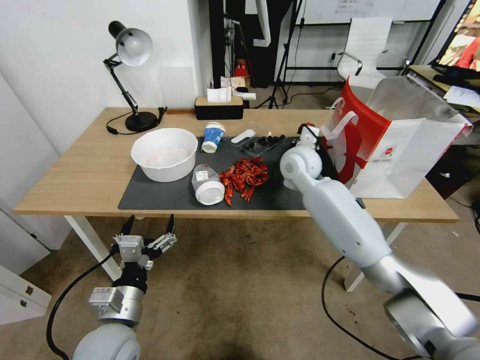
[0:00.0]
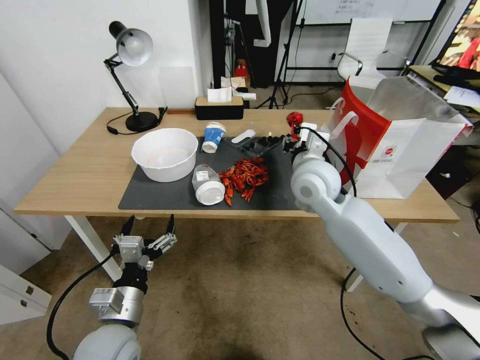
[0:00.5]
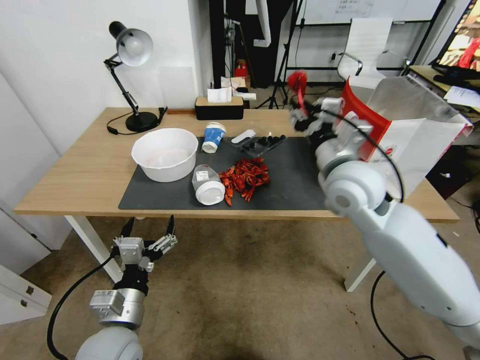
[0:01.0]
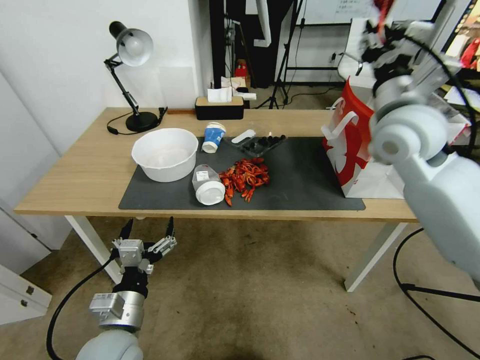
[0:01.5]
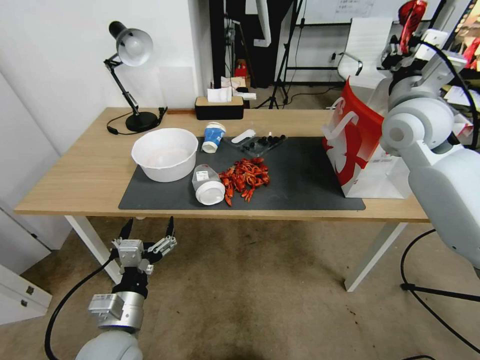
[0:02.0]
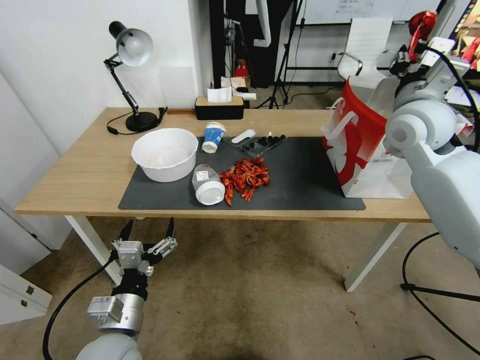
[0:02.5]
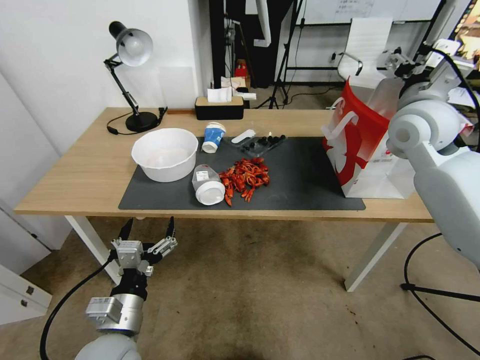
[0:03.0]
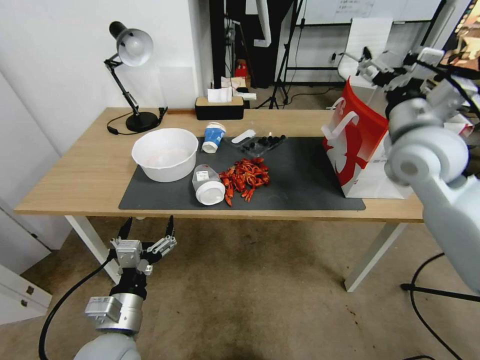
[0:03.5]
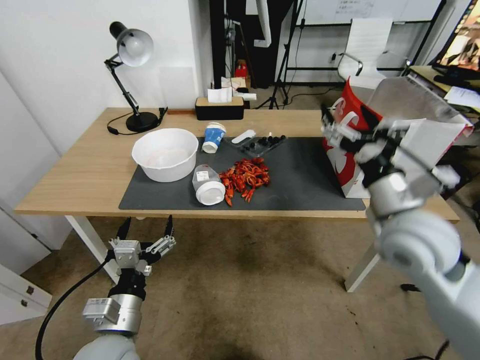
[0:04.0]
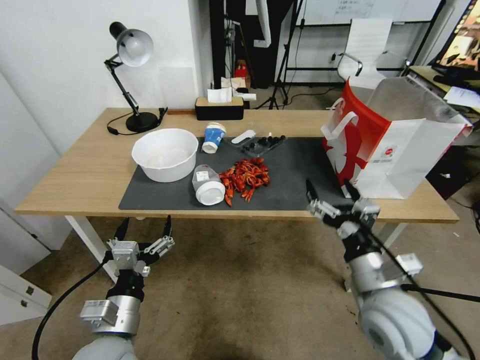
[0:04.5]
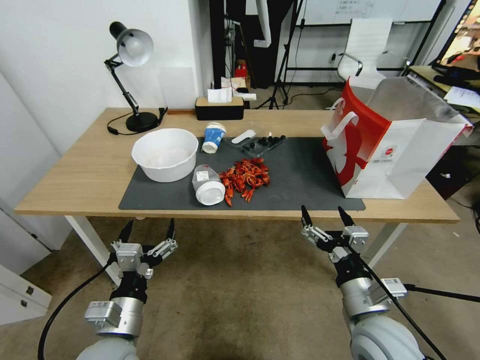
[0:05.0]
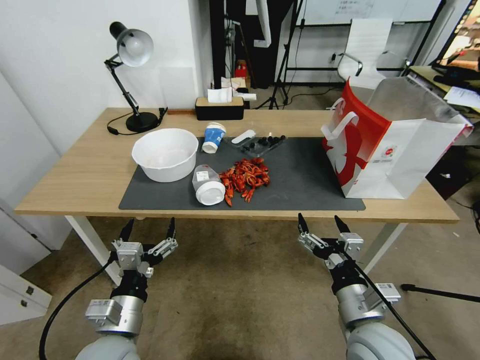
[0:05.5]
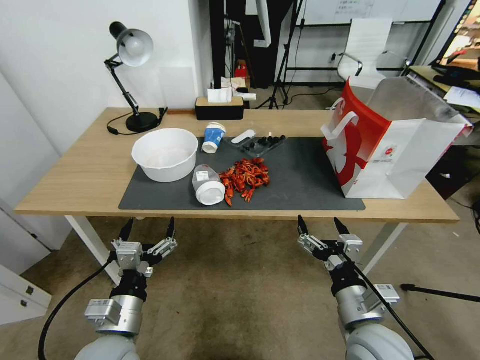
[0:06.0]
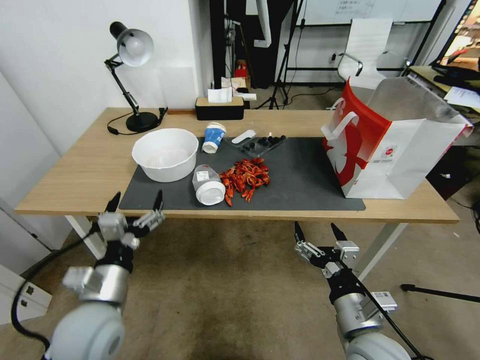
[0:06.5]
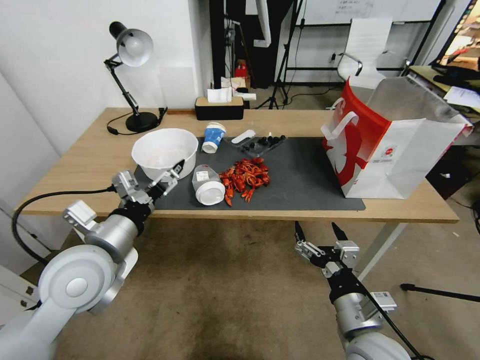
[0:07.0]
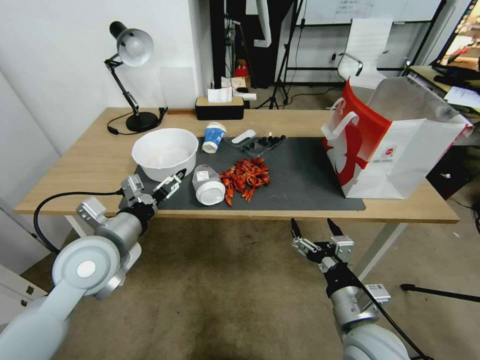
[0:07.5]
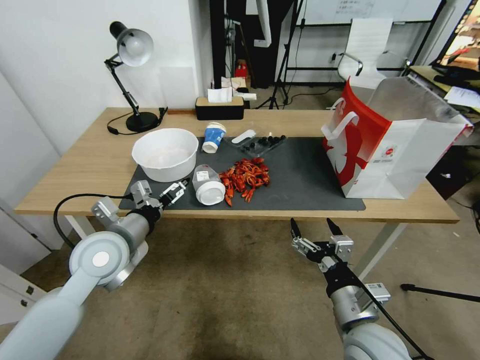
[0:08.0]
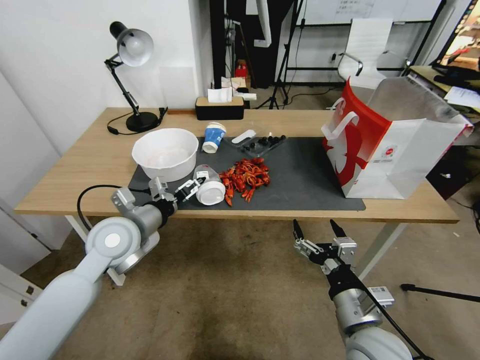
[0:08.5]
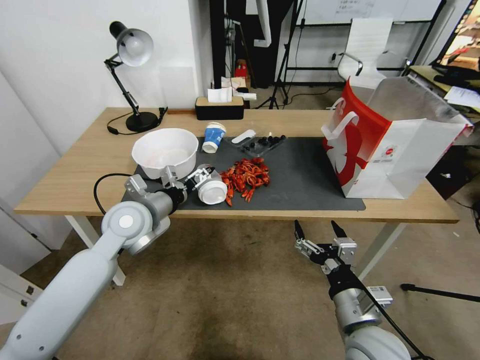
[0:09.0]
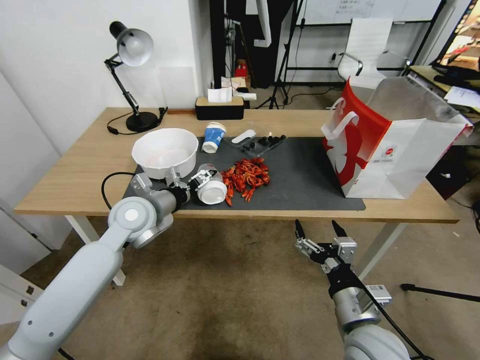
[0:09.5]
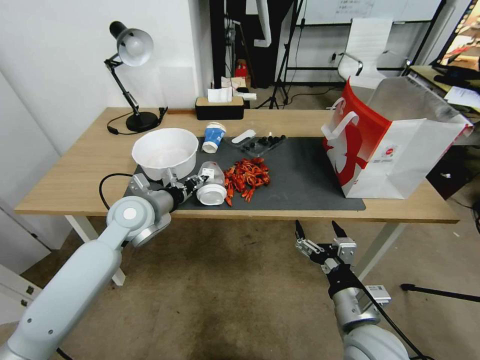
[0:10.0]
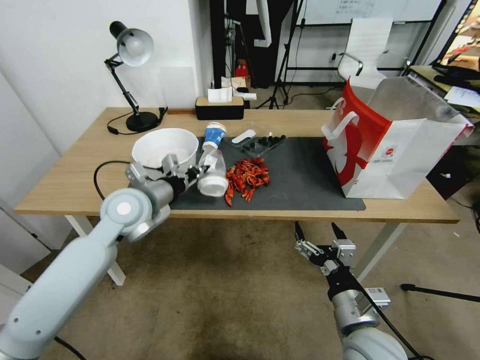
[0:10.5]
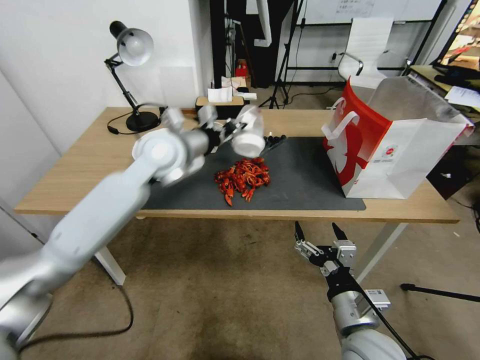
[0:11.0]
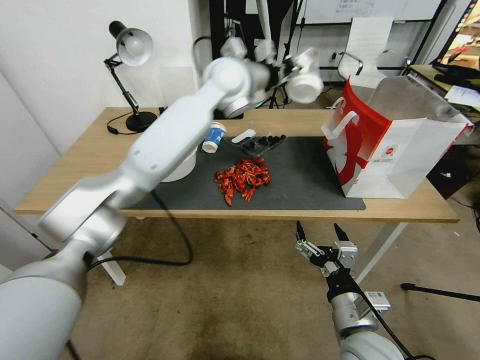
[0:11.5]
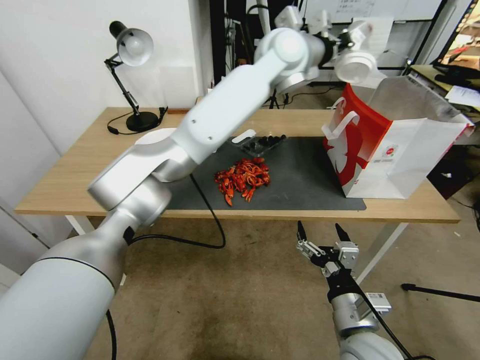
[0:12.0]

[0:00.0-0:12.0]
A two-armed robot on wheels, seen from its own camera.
0:00.0 to 0:02.0: The right gripper goes roughly 25 cm upward, to the right and backward.
0:02.0 to 0:04.0: The right gripper goes approximately 20 cm backward and downward, and opens.
0:04.0 to 0:06.0: The right gripper travels downward and backward by roughly 20 cm.
0:06.0 to 0:08.0: The left gripper shifts roughly 20 cm forward and upward.
0:08.0 to 0:10.0: The left gripper shifts about 10 cm forward, and closes its fingers.
0:10.0 to 0:12.0: The left gripper goes roughly 40 cm to the right, upward and forward, and closes up.

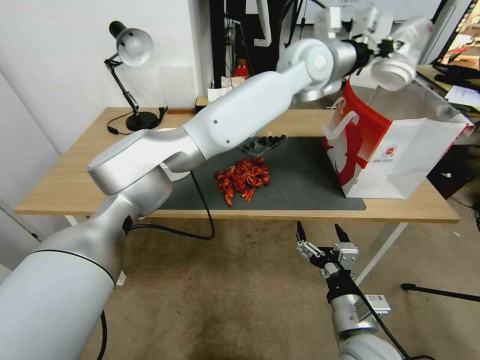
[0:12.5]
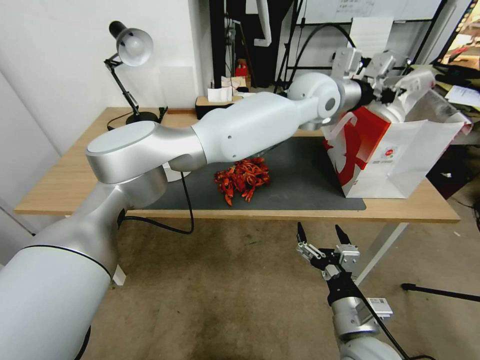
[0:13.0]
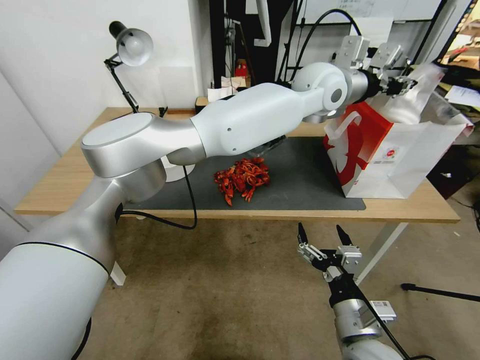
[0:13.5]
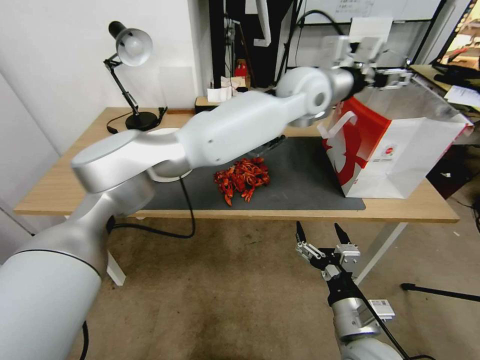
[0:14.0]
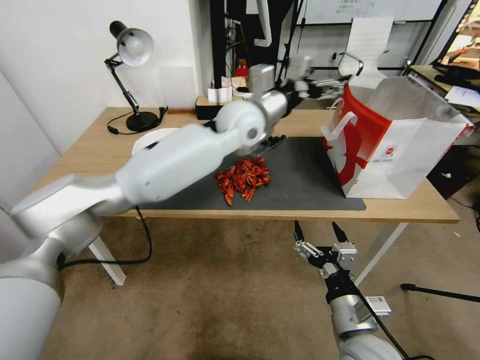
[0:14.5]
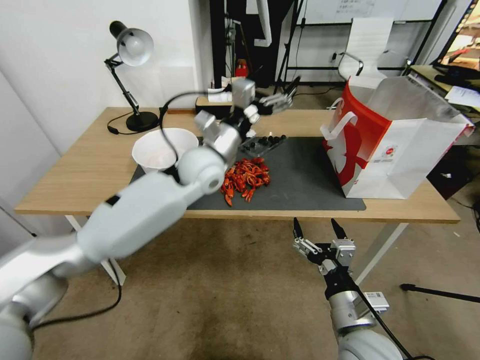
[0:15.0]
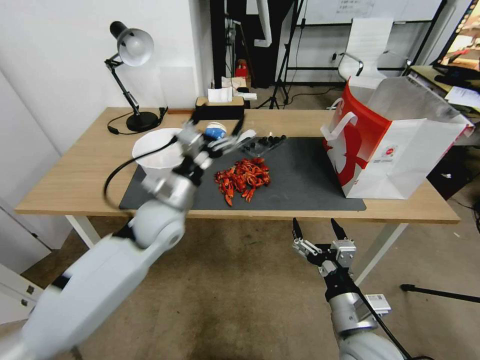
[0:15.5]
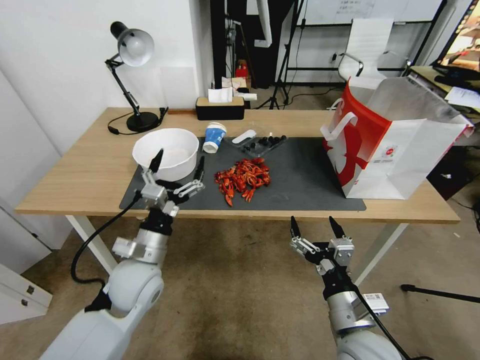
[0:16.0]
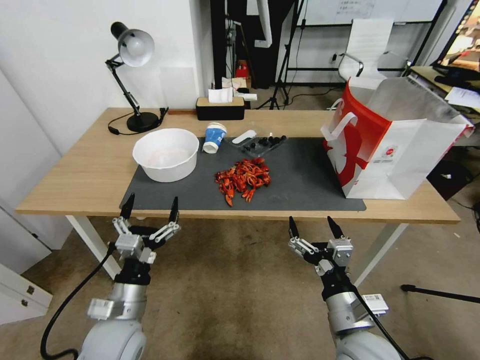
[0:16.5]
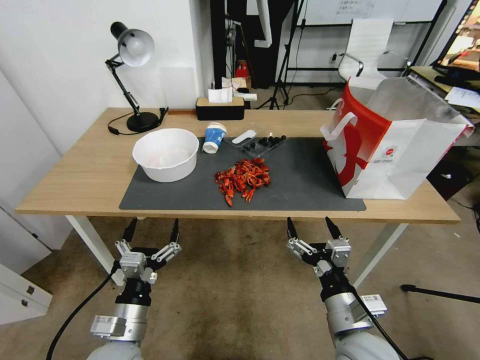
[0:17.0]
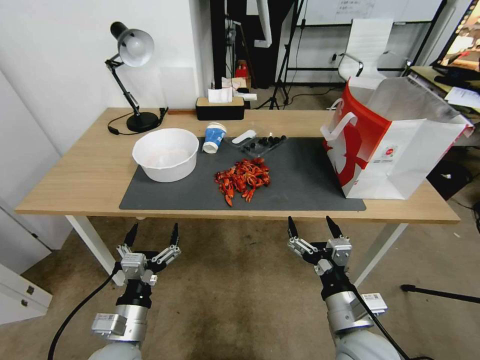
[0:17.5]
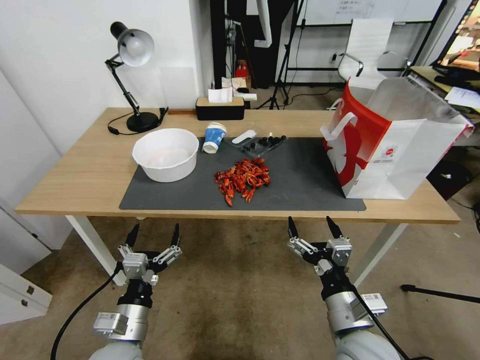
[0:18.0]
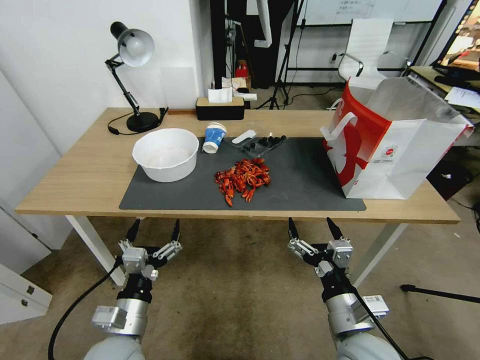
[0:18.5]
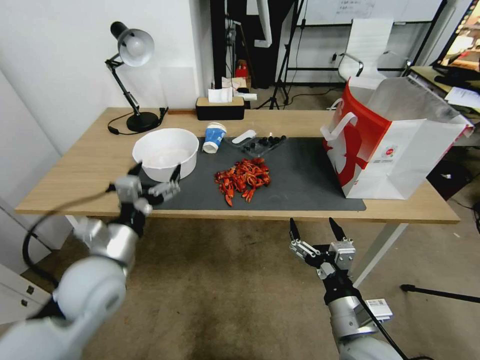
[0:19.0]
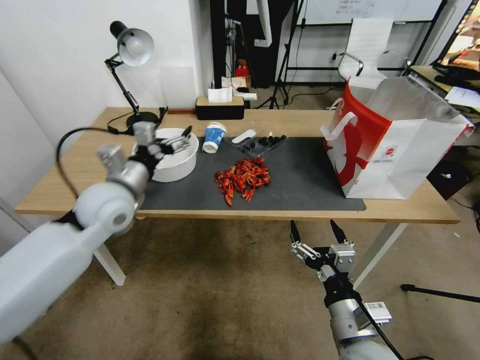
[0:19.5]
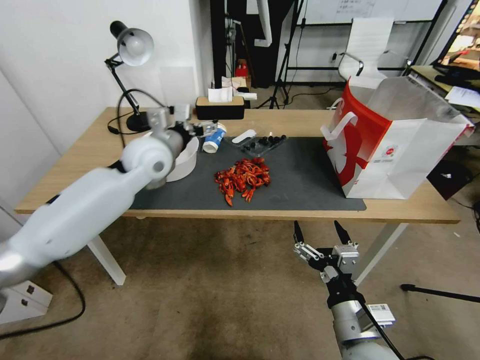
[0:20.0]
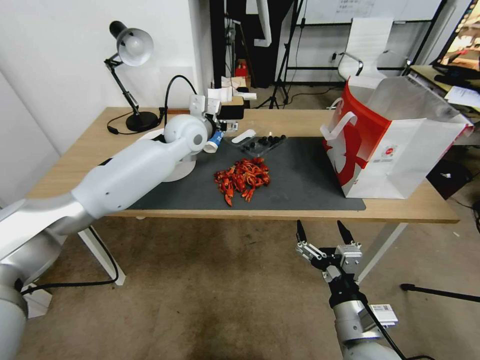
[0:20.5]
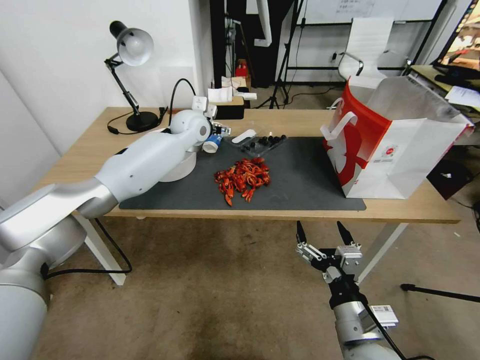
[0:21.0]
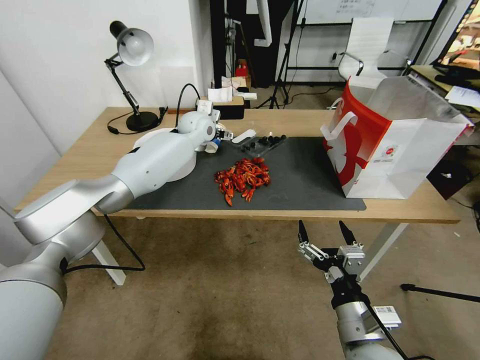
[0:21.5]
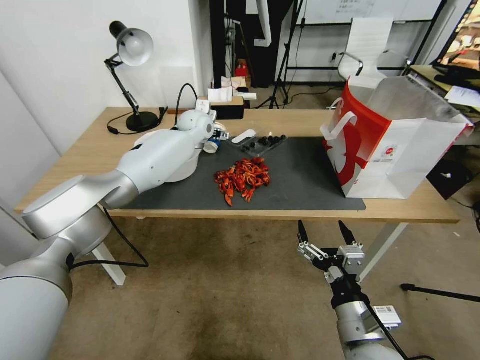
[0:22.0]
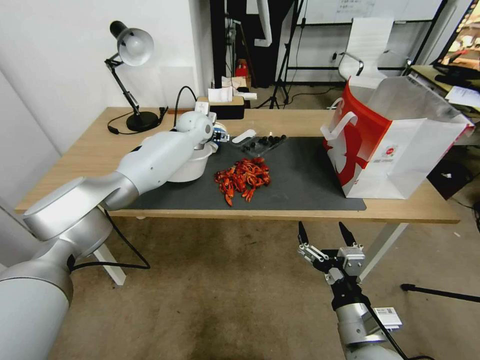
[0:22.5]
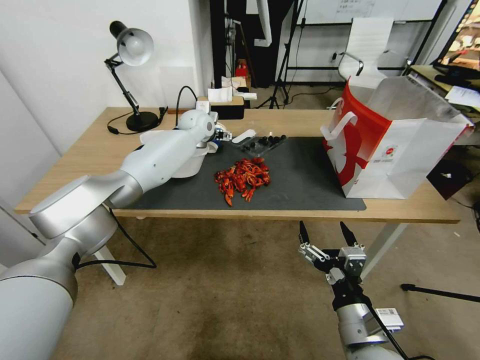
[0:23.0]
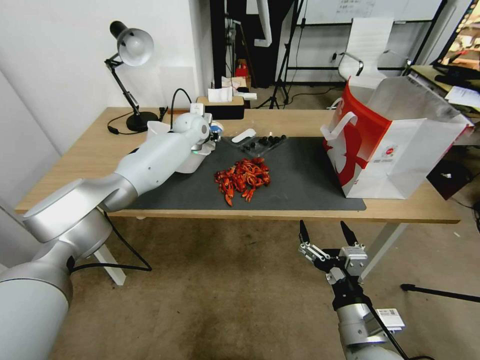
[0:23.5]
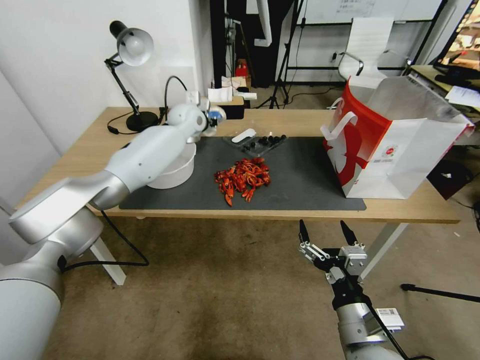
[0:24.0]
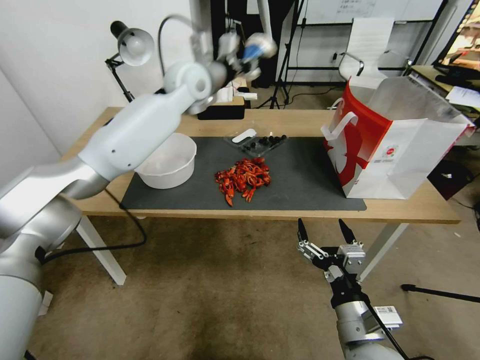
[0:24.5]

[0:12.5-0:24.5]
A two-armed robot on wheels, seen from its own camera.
0:12.5 to 0:14.5: The left gripper goes approximately 15 cm to the left and downward, and opens.
0:14.5 to 0:16.5: The left gripper travels backward, downward and to the left by some 50 cm.
0:16.5 to 0:18.5: The grippers stay close to where they were, moving slightly.
0:18.5 to 0:20.5: The left gripper travels forward and upward by some 40 cm.
0:20.5 to 0:22.5: The left gripper goes roughly 10 cm forward.
0:22.5 to 0:24.5: The left gripper is displaced upward and backward by about 15 cm, and closes its fingers.

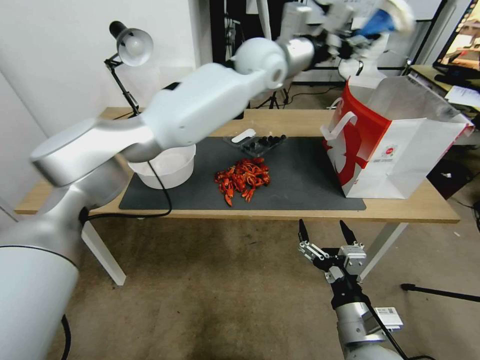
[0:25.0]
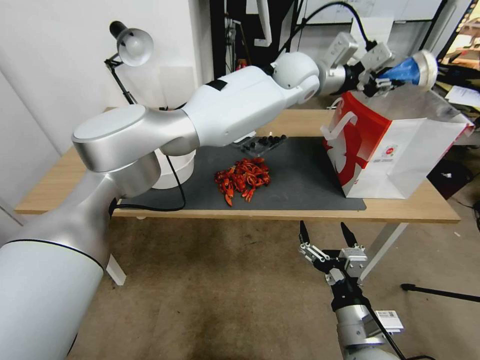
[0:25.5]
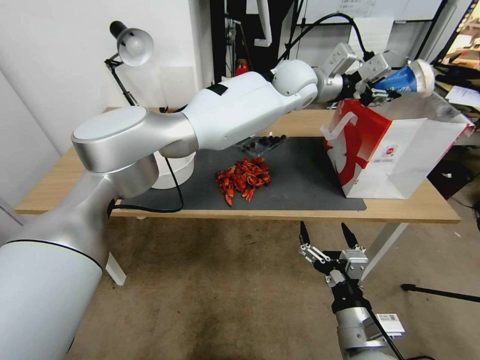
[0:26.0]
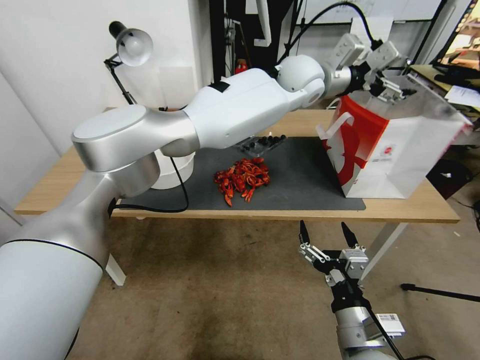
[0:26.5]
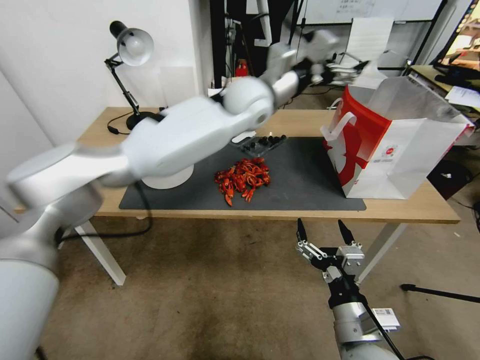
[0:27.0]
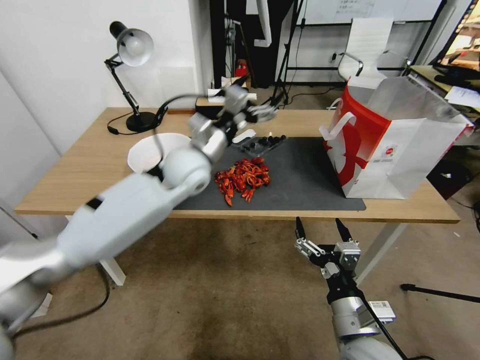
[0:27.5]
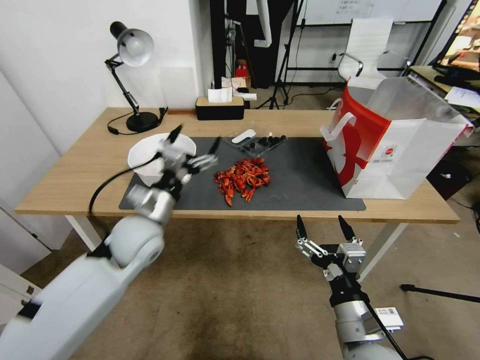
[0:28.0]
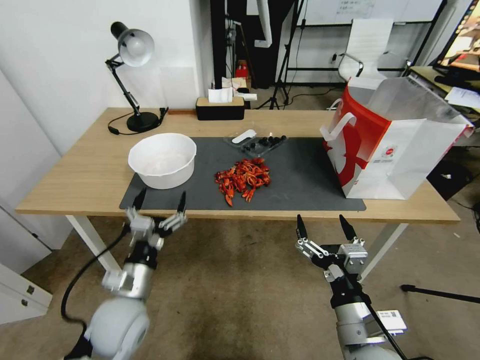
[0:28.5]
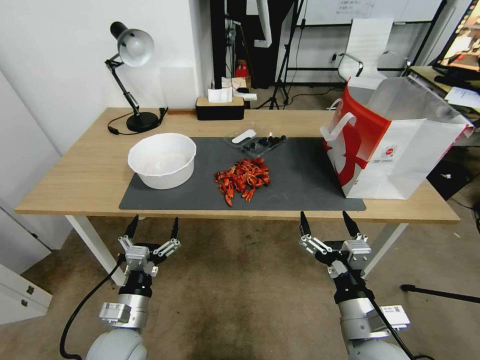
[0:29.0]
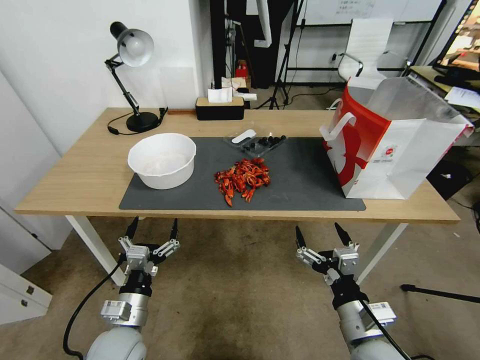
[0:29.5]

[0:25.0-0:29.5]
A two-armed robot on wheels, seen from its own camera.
0:25.0 to 0:27.0: The left gripper heads downward, covering approximately 5 cm, and opens its fingers.
0:27.0 to 0:29.5: The left gripper goes approximately 50 cm backward, downward and to the left.
